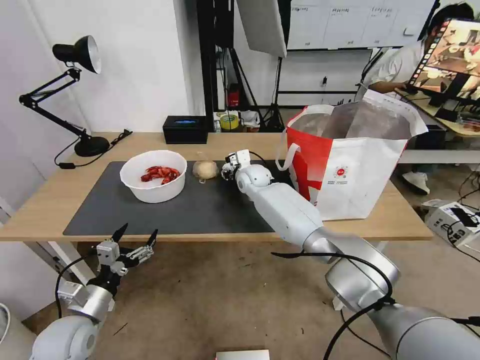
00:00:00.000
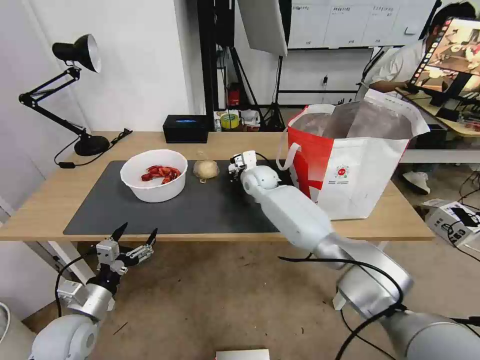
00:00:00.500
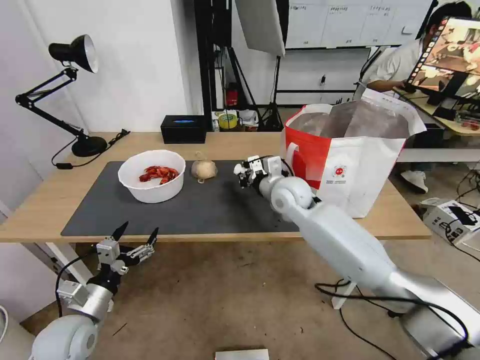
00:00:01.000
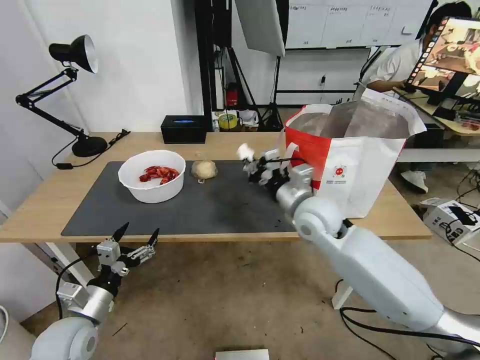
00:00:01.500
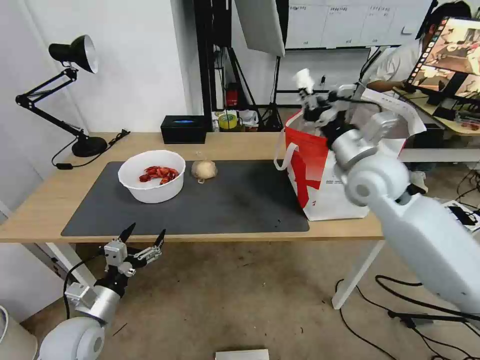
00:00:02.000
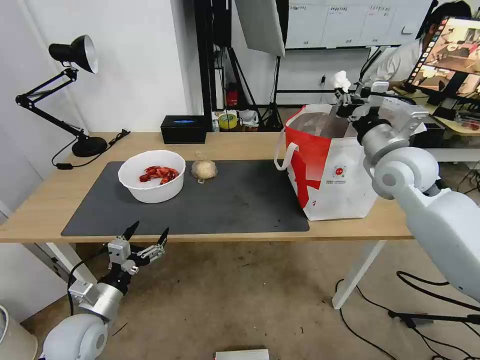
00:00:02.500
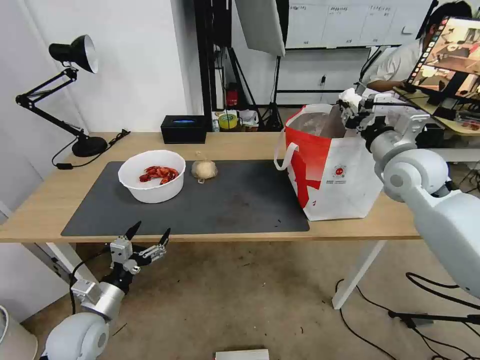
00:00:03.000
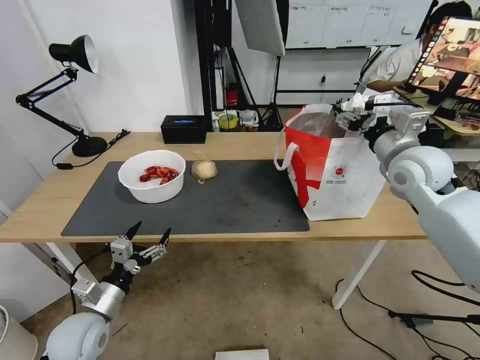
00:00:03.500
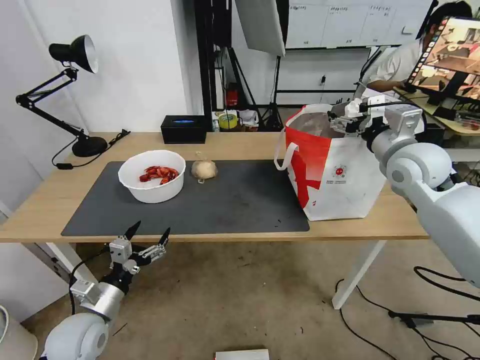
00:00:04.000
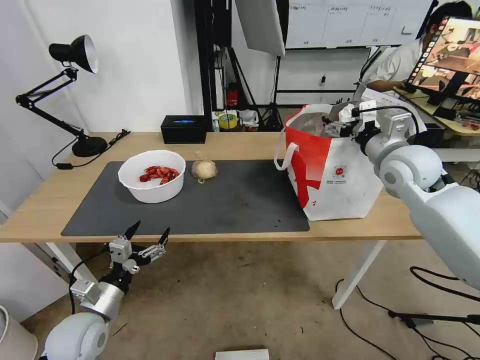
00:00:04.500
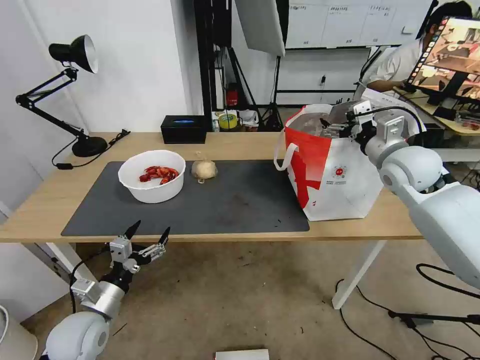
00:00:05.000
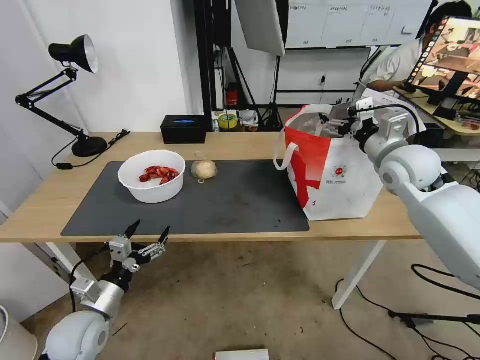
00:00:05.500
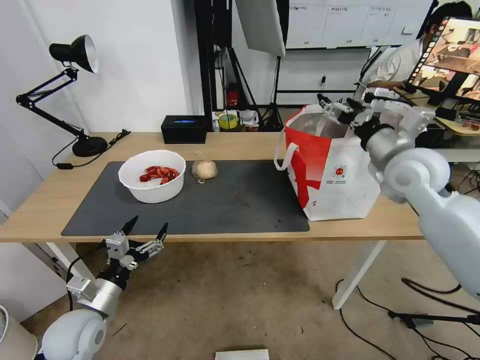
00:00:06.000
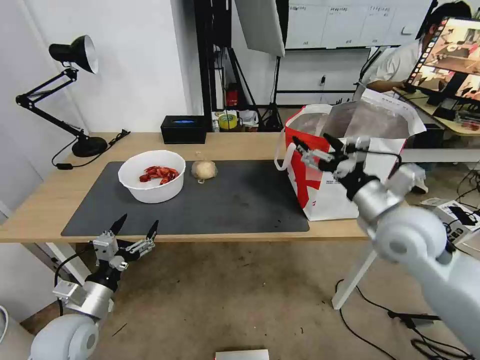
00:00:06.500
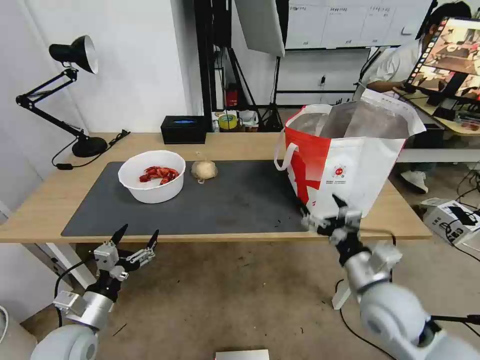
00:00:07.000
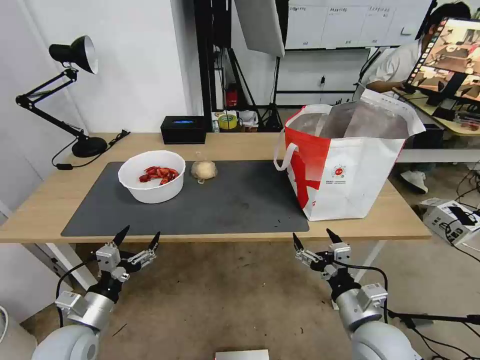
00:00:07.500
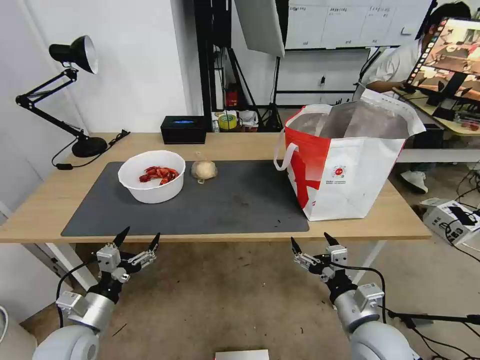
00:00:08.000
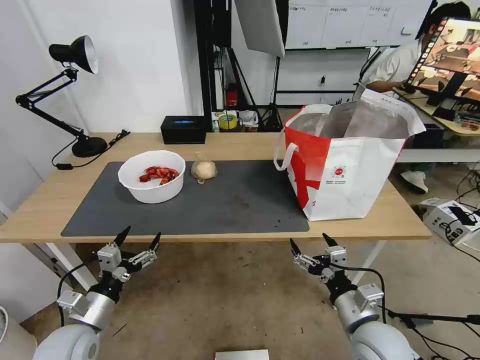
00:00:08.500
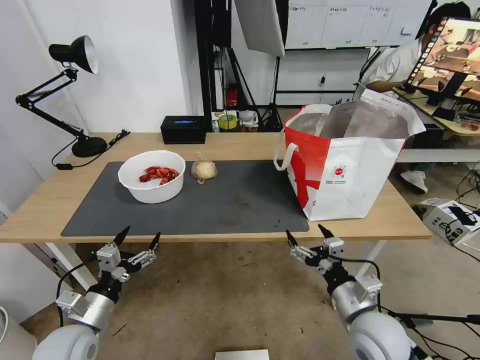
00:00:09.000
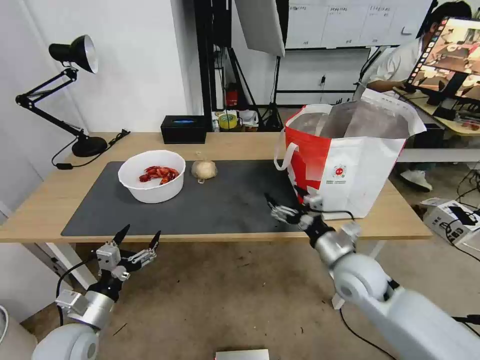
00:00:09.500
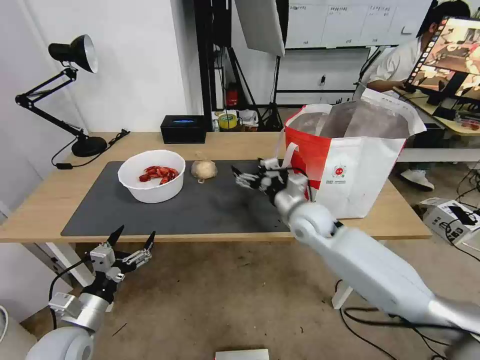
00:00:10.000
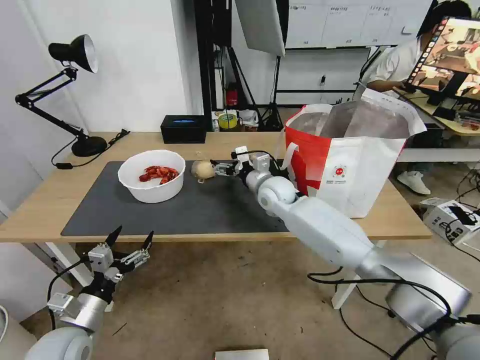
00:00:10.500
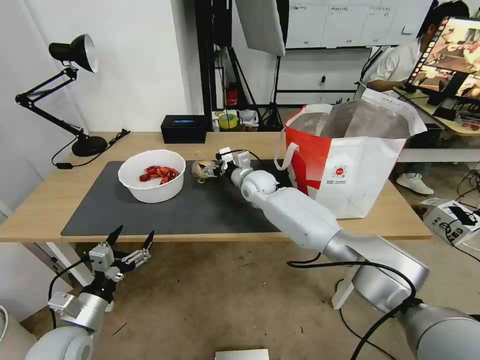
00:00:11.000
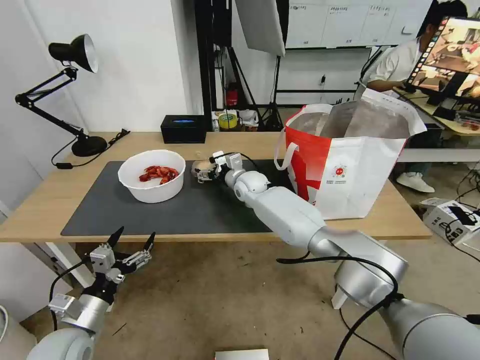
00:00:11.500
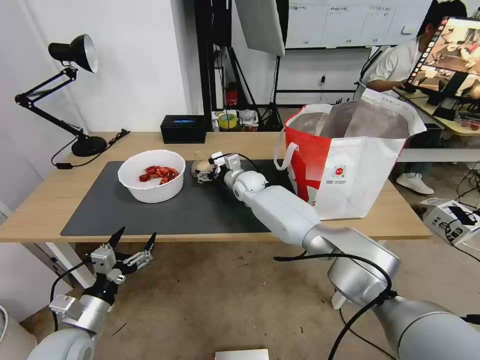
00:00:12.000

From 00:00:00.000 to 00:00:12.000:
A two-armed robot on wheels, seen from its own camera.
Task of the whole recording: Pick up the trash from the table and place it into the takeout bag.
From 00:00:00.000 to 00:00:02.000: The right gripper travels to the right, backward and upward by some 30 cm, and closes up.
From 00:00:02.000 to 00:00:04.000: The right gripper shifts approximately 10 cm to the right, and opens its fingers.
From 00:00:06.000 to 00:00:08.000: The right gripper goes about 35 cm backward and downward.
From 00:00:08.000 to 00:00:10.000: The right gripper is displaced forward by approximately 25 cm.
From 00:00:10.000 to 00:00:12.000: The right gripper heads forward and to the left, covering about 20 cm.

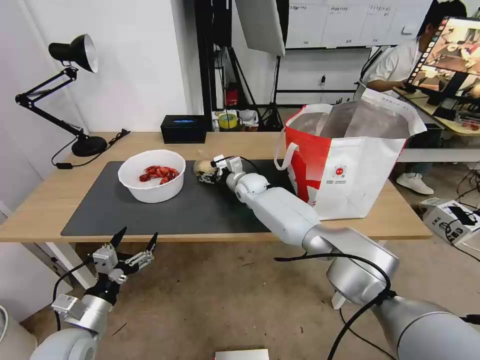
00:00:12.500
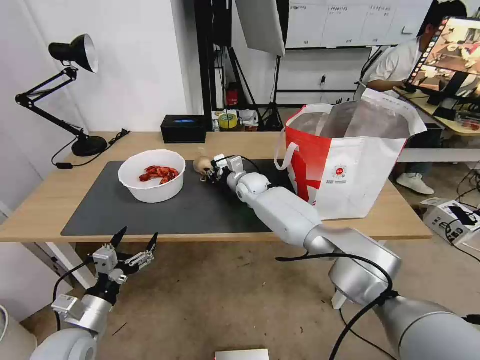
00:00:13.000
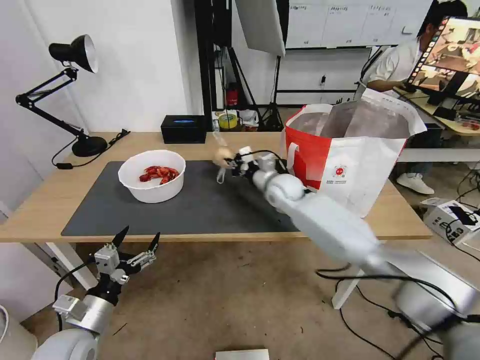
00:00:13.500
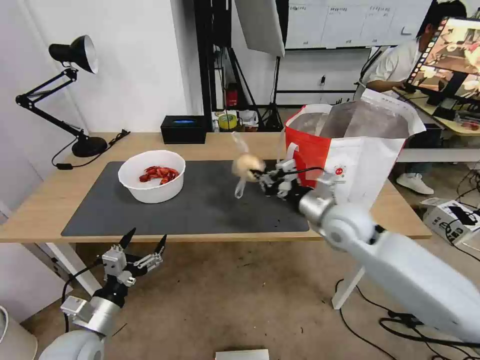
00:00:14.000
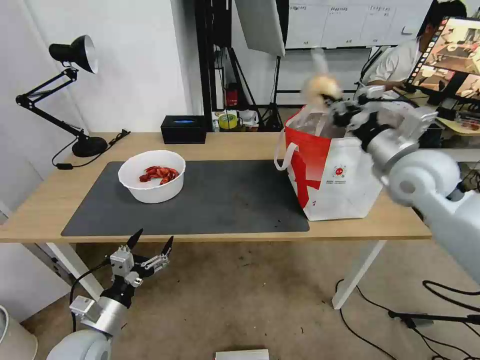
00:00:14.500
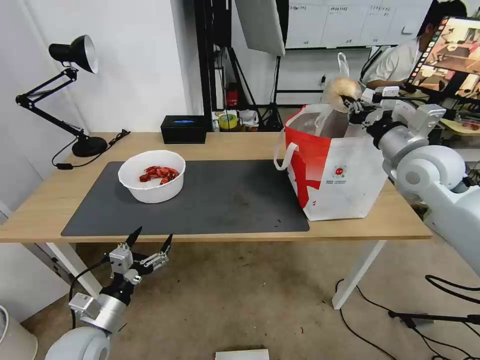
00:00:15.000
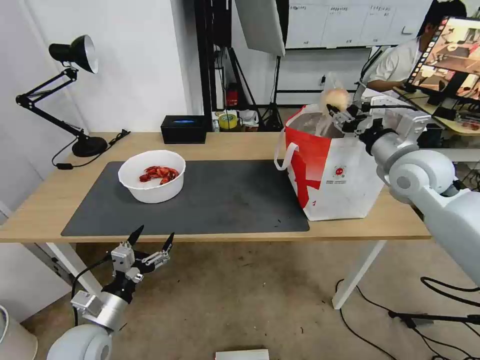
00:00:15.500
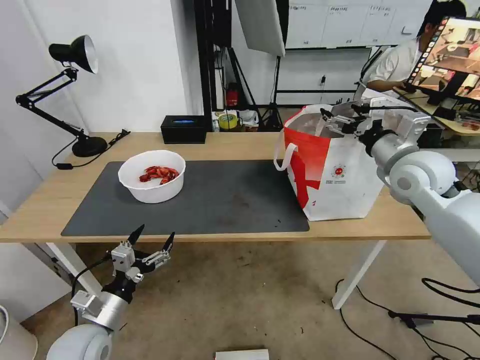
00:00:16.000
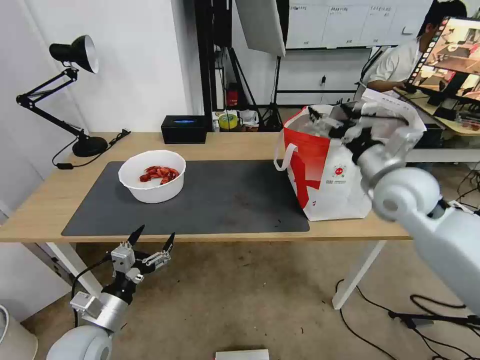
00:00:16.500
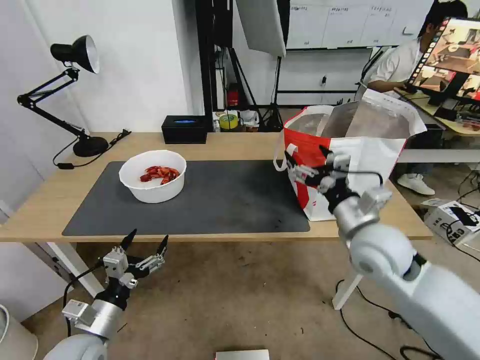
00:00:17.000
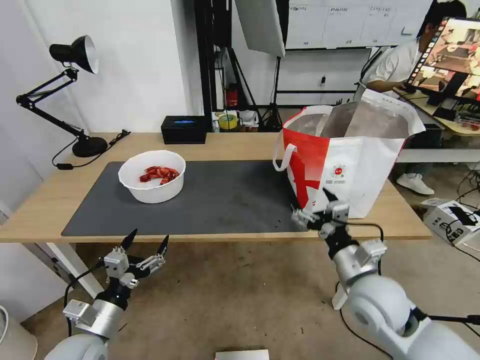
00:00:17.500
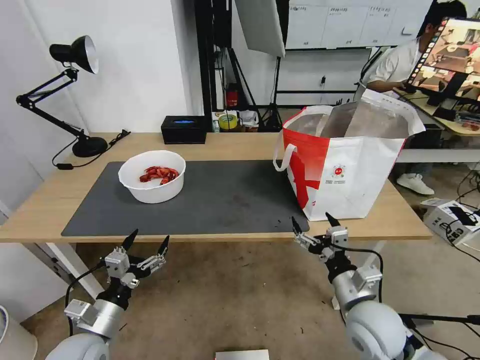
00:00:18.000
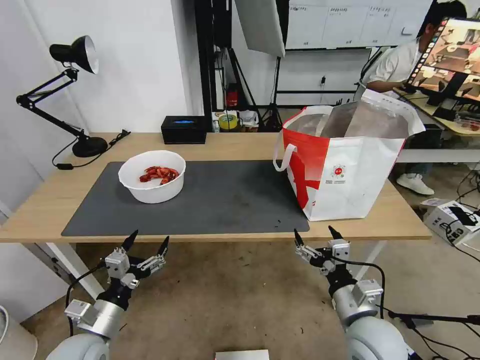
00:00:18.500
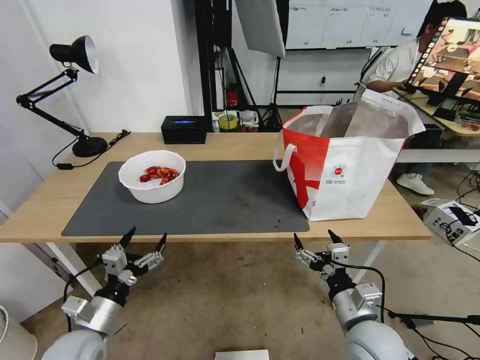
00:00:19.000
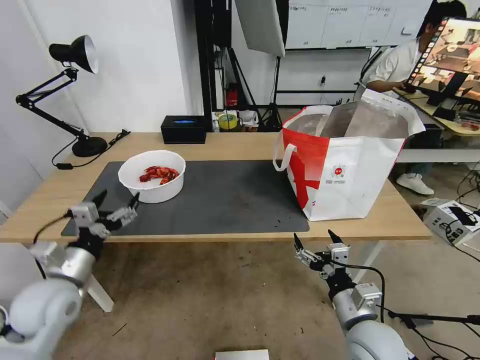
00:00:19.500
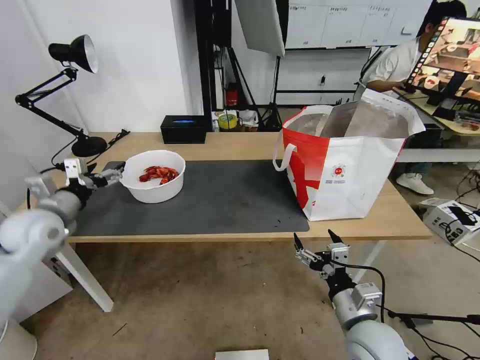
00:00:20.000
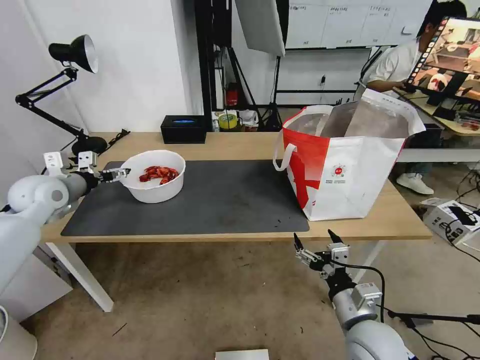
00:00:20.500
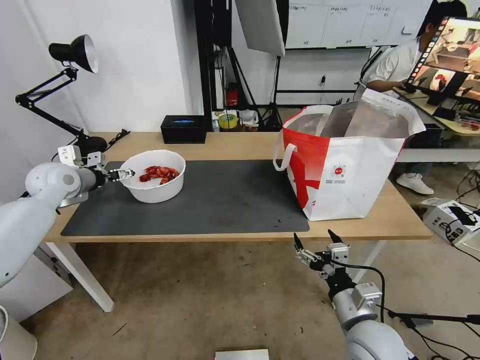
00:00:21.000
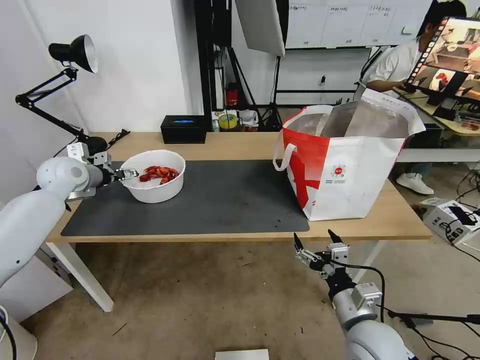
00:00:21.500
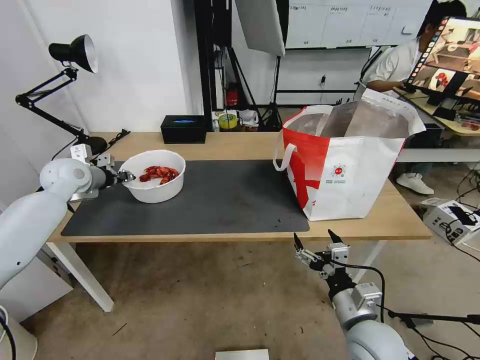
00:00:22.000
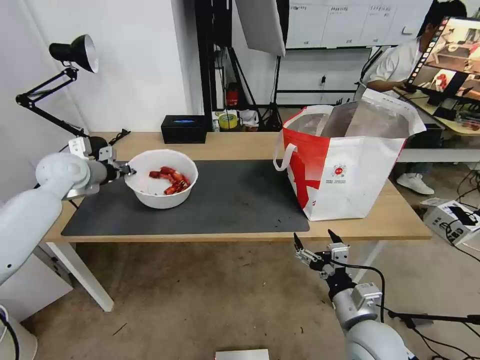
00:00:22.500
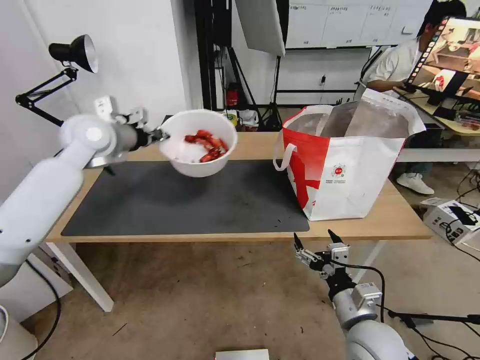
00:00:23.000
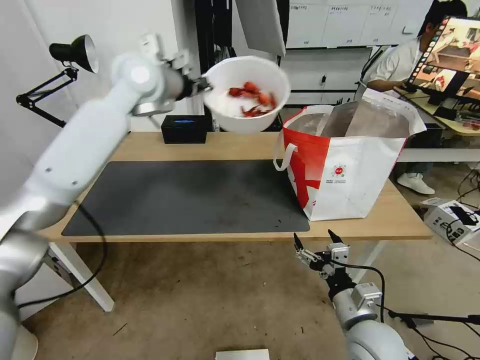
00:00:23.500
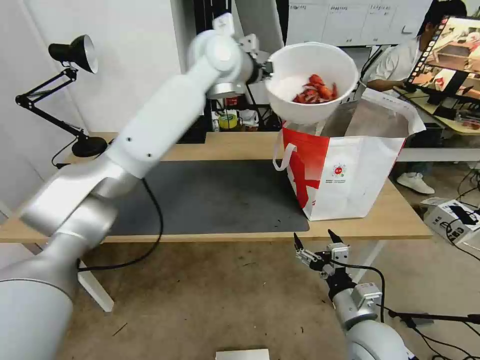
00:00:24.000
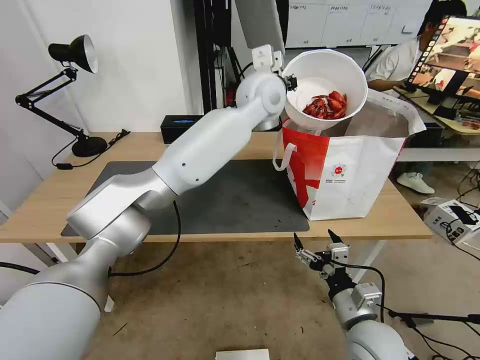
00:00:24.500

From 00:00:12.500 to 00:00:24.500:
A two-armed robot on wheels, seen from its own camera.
Task of the whole recording: Pick up the trash from the table and place it into the takeout bag.
From 00:00:12.500 to 00:00:14.500: The right gripper is displaced to the right, upward and backward by some 40 cm, and closes its fingers.
From 00:00:14.500 to 00:00:16.500: The right gripper opens its fingers.
From 00:00:16.500 to 00:00:18.500: The right gripper goes approximately 30 cm downward and backward.
From 00:00:18.500 to 00:00:20.500: The left gripper heads forward, upward and to the left, covering about 35 cm.
From 00:00:20.500 to 00:00:22.500: The left gripper ends up approximately 5 cm from where it was, and closes.
From 00:00:22.500 to 00:00:24.500: The left gripper heads to the right, covering some 40 cm.

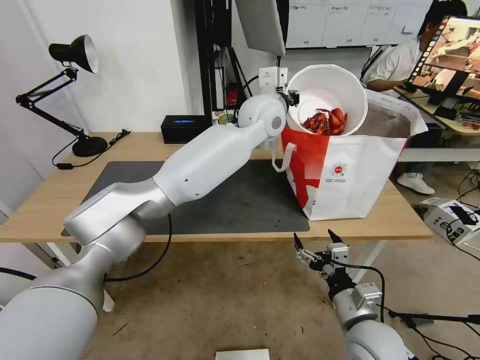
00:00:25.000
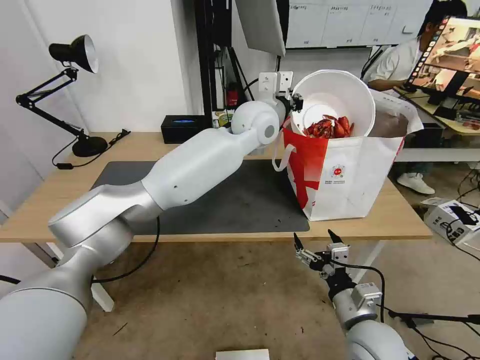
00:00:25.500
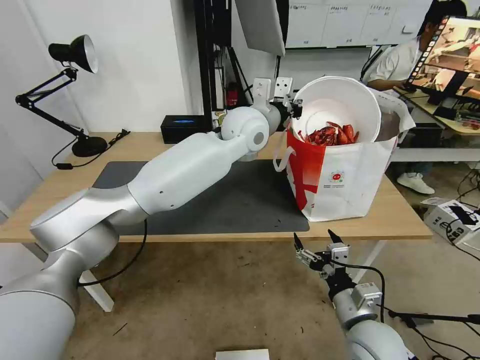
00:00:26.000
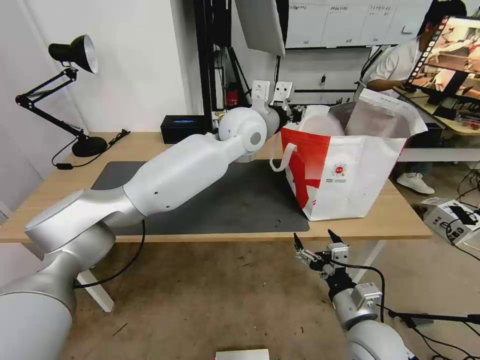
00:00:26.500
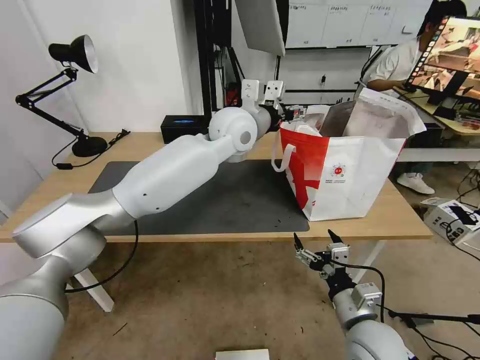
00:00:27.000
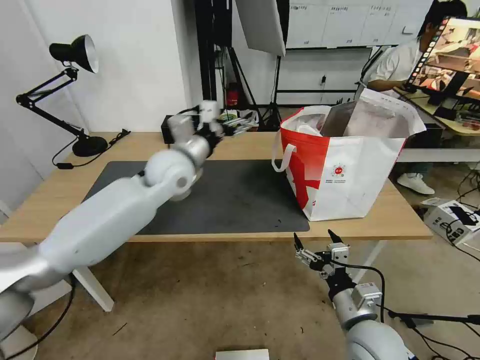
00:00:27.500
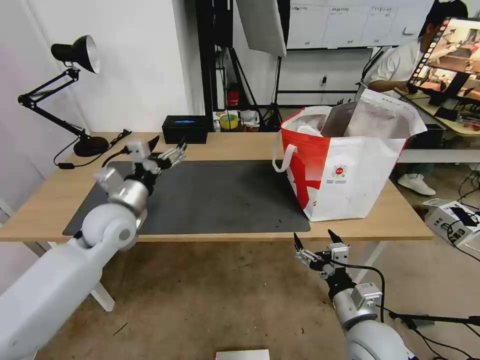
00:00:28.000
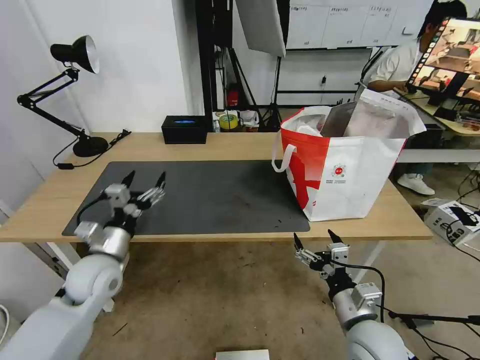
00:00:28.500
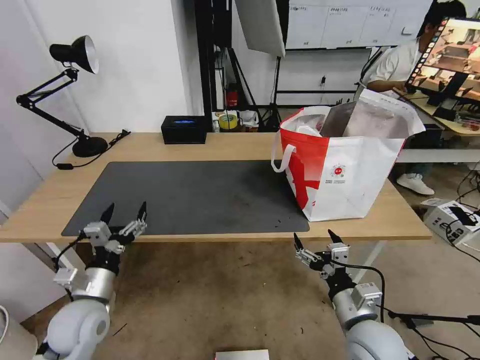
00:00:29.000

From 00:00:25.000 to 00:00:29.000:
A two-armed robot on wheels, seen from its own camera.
Task of the whole recording: Pick up the trash from the table and place it into the takeout bag.
From 00:00:25.000 to 00:00:27.000: The left gripper travels to the left by approximately 5 cm, and opens its fingers.
From 00:00:27.000 to 00:00:29.000: The left gripper goes roughly 50 cm to the left, backward and downward.
